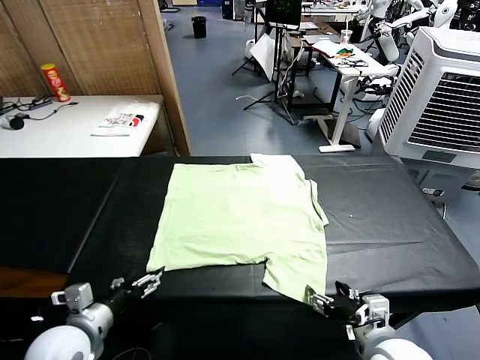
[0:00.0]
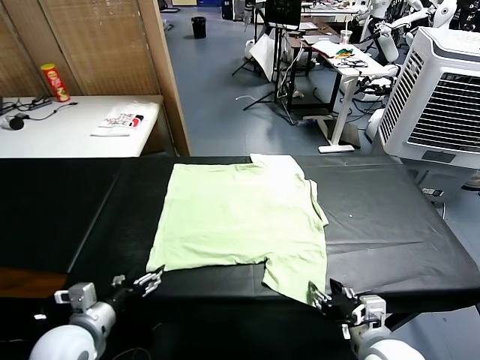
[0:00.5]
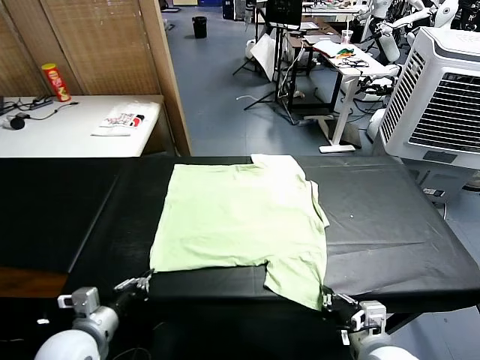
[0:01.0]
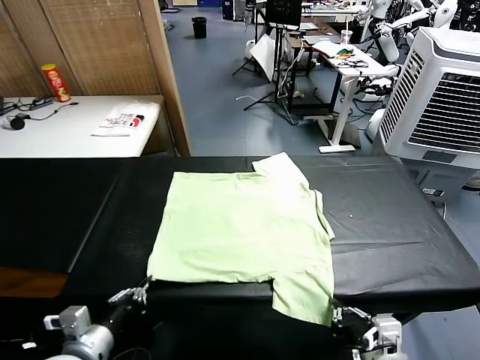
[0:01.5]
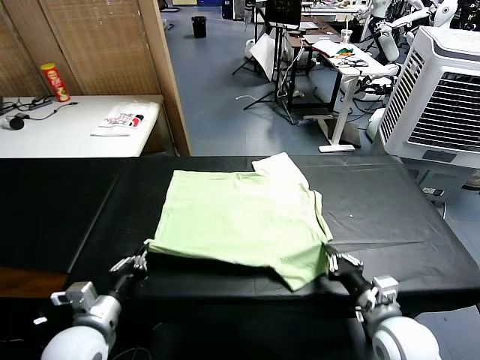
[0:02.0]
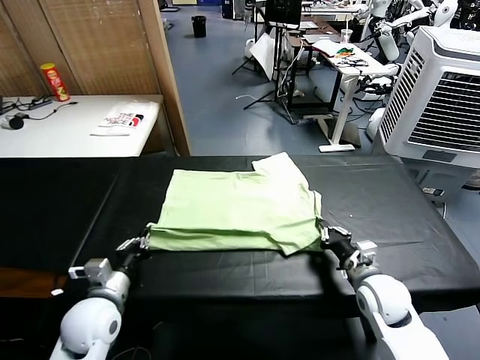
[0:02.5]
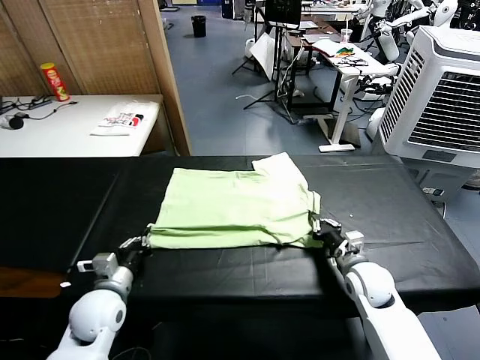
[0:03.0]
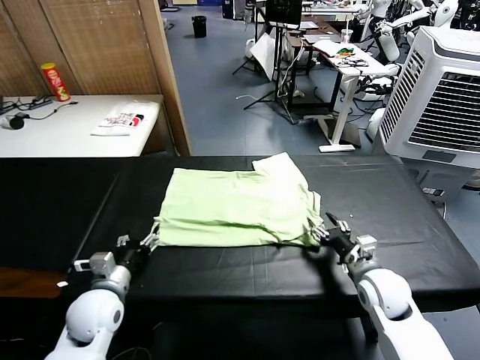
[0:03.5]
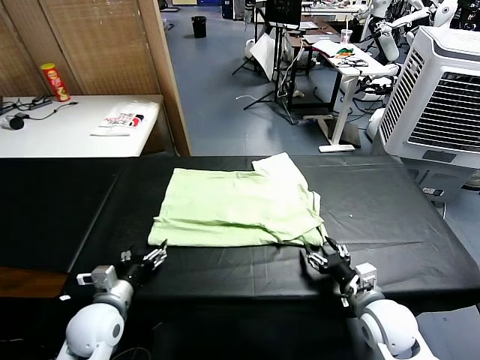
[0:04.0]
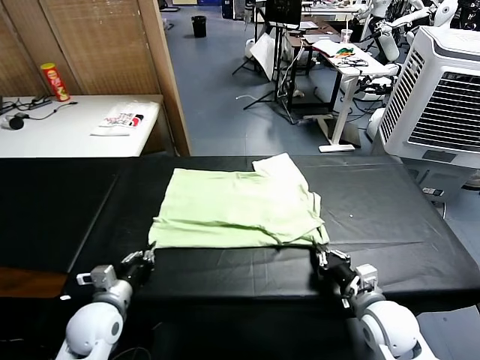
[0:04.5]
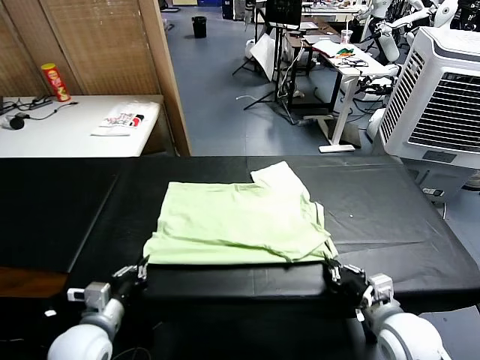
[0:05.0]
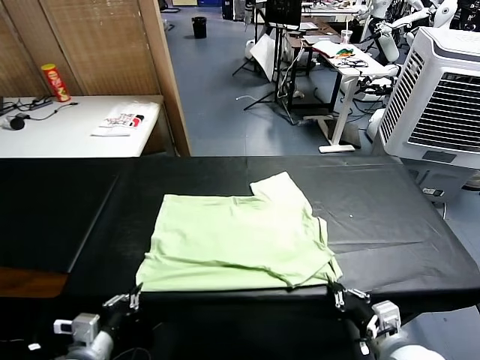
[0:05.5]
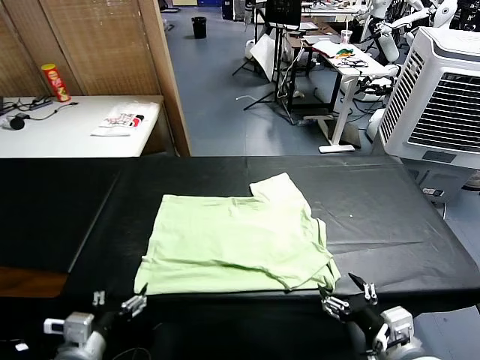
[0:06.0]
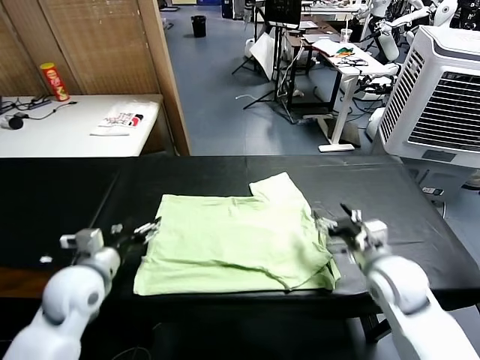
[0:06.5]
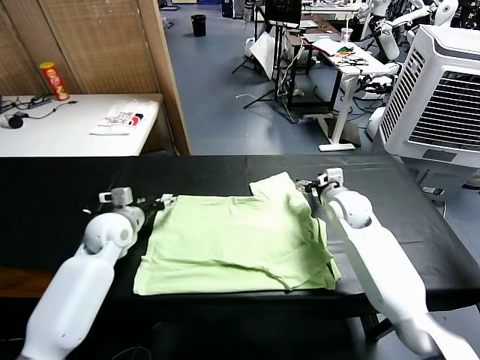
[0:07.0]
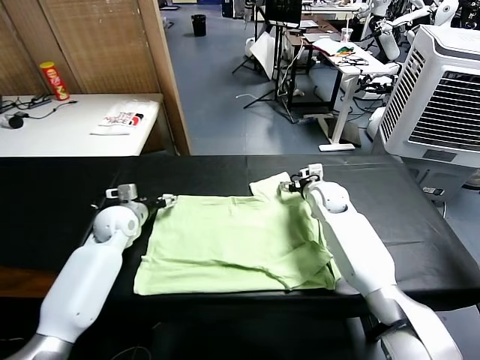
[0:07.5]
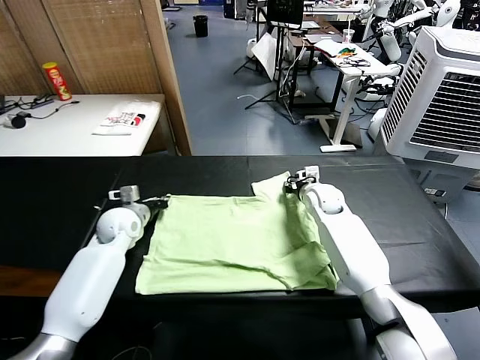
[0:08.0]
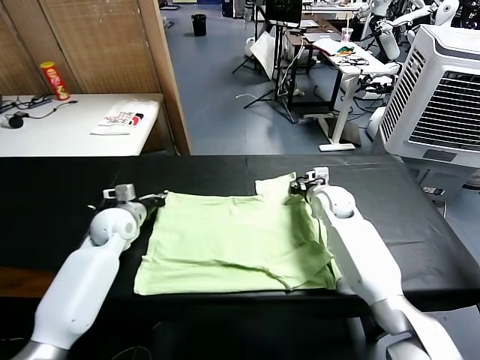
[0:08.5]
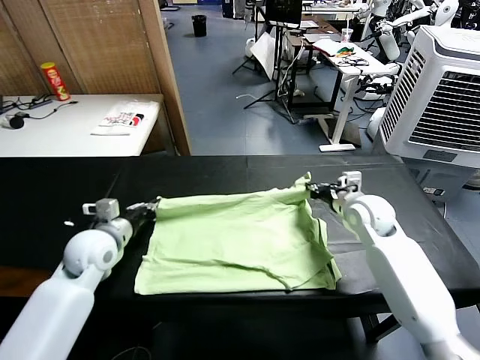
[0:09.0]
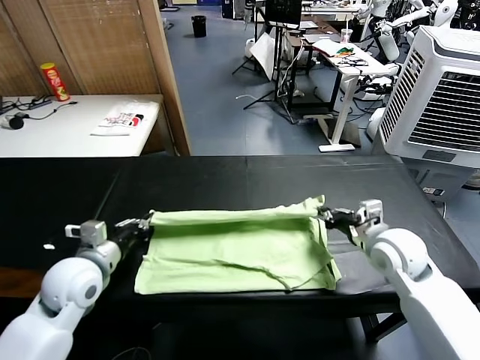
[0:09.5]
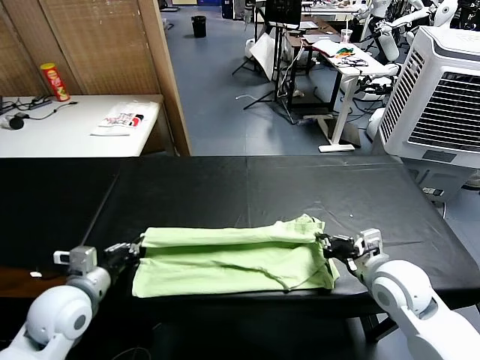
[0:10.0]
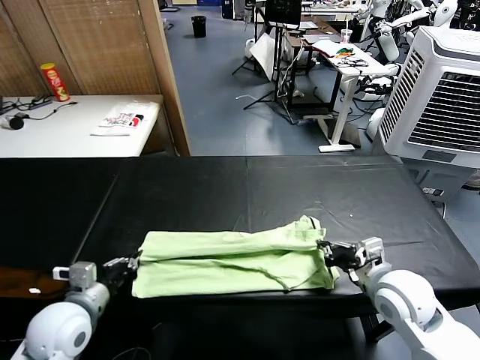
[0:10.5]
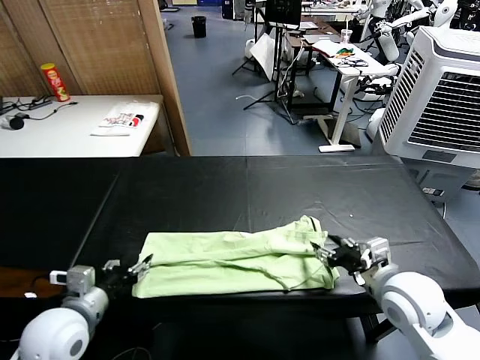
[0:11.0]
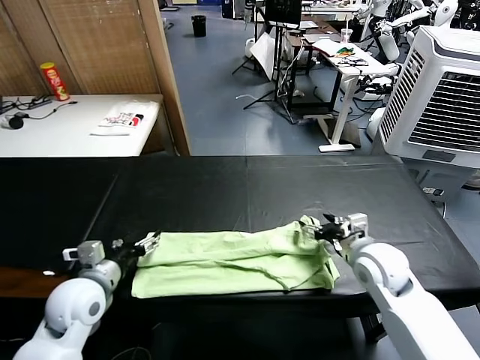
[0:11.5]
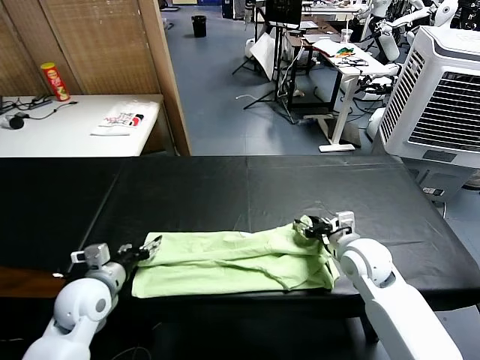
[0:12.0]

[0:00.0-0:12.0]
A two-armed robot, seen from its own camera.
Task of the whole recording: fold and organize the clothes.
Step, 0:00.0 to 0:01.0: use both grippers simultaneously to clamp the lower edge of the clothing fabric.
Step, 0:01.5 to 0:03.5: use both grippers to drag the lower edge of the fabric forward and fold it over the upper edge.
Step, 0:04.0 to 0:06.0: Drag the clothes downward with both gripper.
Step, 0:06.5 to 0:08.0: use both grippers simultaneously to clamp the upper edge of the clothing fabric.
Step, 0:08.5 to 0:11.0: use both grippers to drag the upper edge of the fabric backward and fold it over the lower edge.
0:02.0 to 0:04.0: The right gripper travels forward and back again, roughly 10 cm each way, and opens its fingers. Meanwhile the left gripper heads downward, covering some 5 cm, and opens up.
0:04.0 to 0:06.0: The right gripper is displaced upward and backward by about 10 cm, and opens up; the left gripper goes approximately 10 cm backward and upward, and closes, then opens again.
0:06.0 to 0:08.0: The grippers both shift forward by roughly 35 cm. The right gripper closes up. Meanwhile the left gripper closes up.
0:08.0 to 0:10.0: The grippers both shift backward by roughly 25 cm.
0:10.0 to 0:12.0: The right gripper is displaced forward by roughly 10 cm, and opens; the left gripper shifts by approximately 5 cm, and opens its fingers.

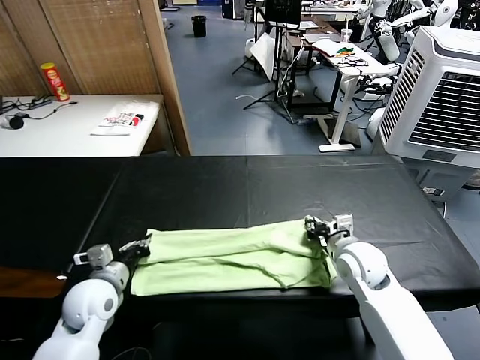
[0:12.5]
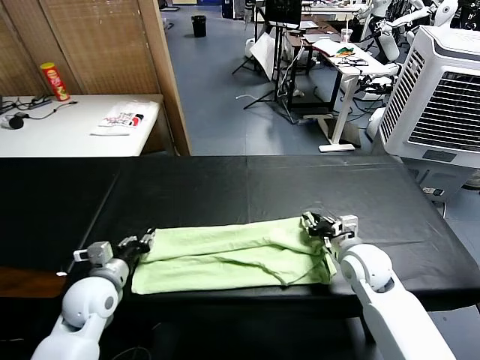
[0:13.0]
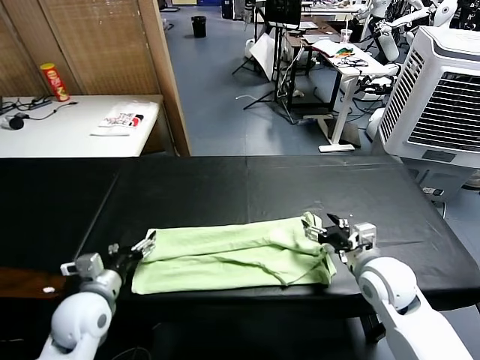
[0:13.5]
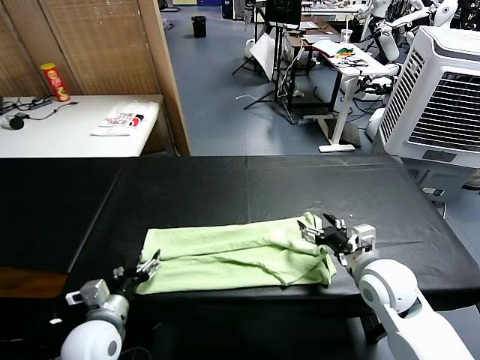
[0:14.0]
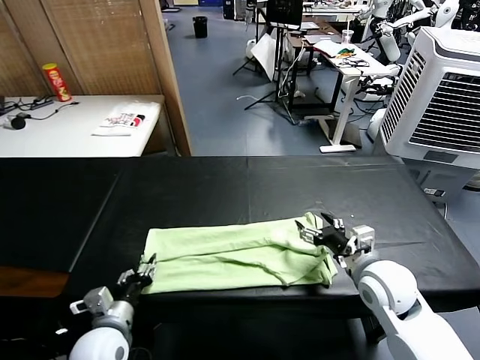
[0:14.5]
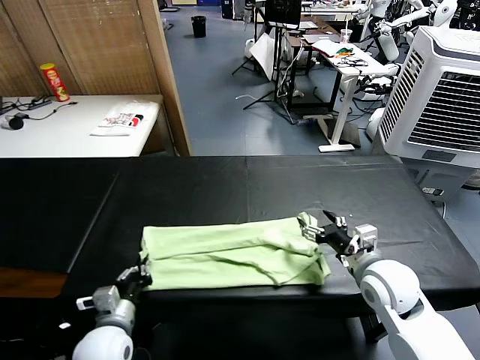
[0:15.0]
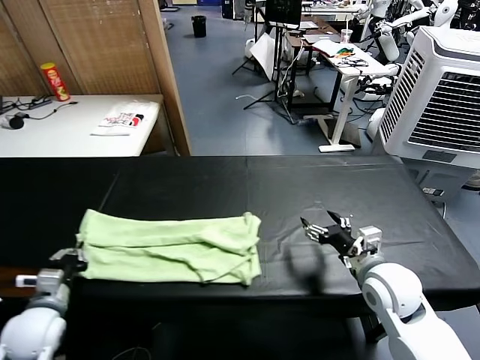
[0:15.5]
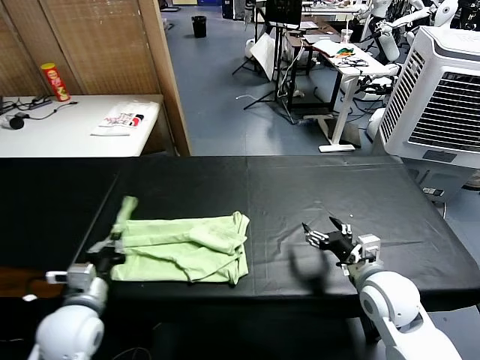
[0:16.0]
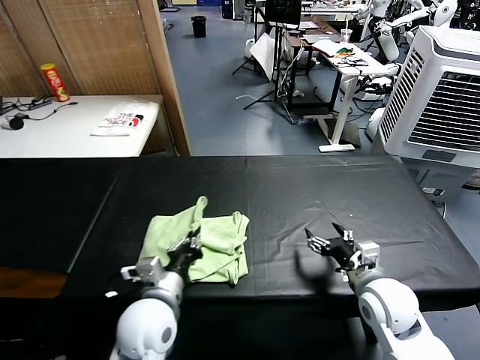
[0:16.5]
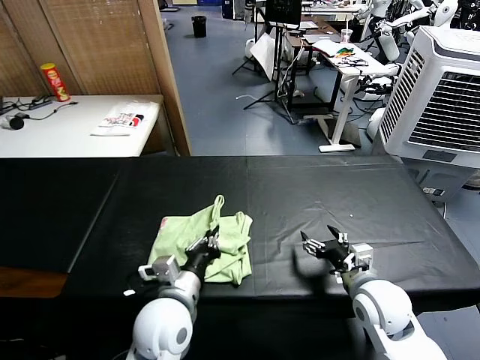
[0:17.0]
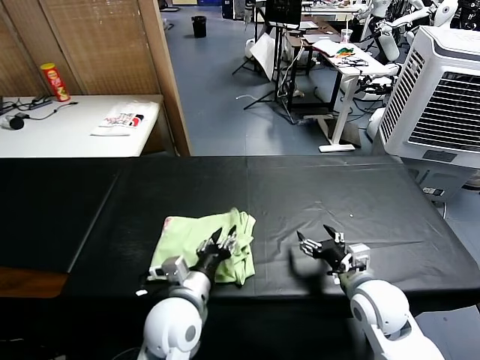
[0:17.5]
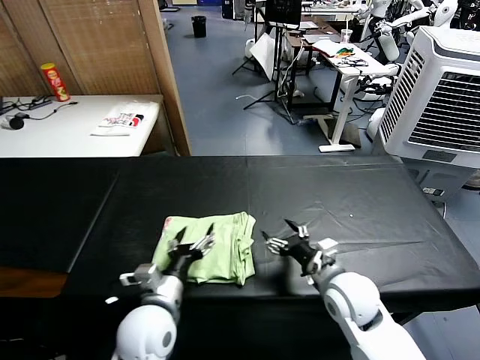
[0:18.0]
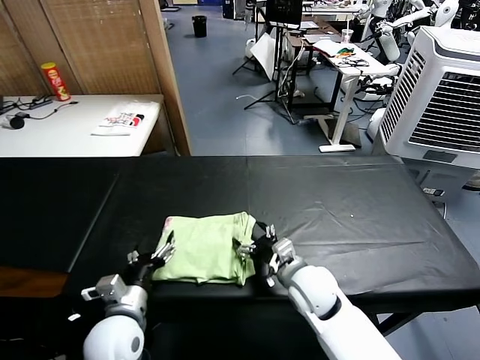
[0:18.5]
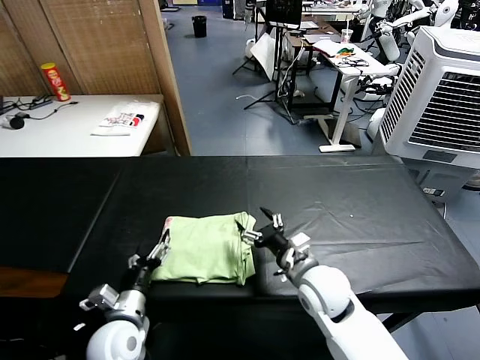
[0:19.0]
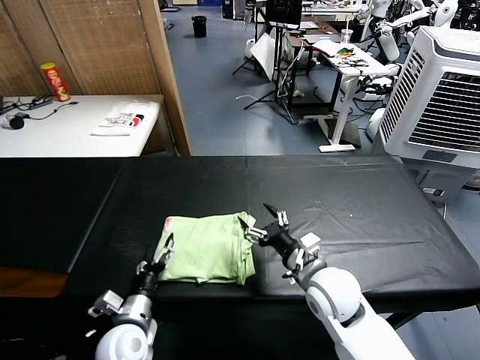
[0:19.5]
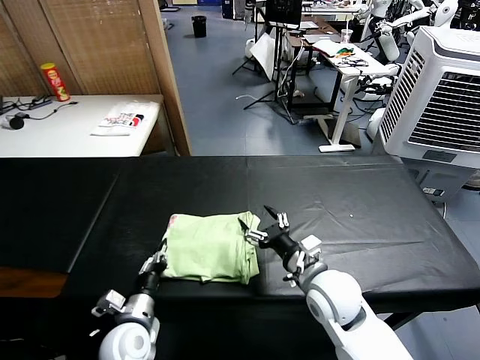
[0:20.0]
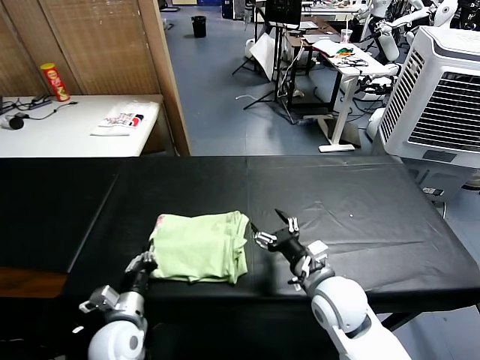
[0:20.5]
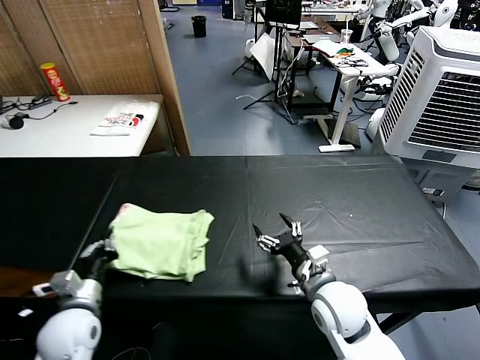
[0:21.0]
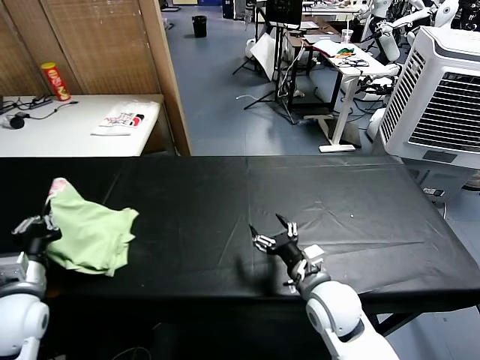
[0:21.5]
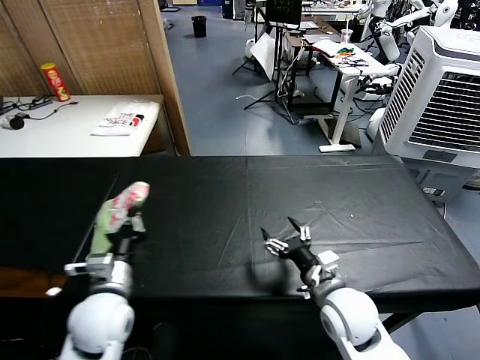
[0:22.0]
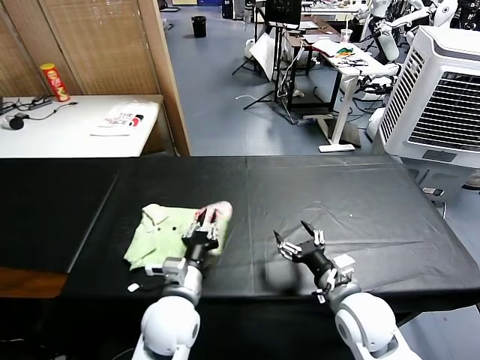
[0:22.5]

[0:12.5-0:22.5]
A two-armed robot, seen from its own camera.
Task of the whole recording: fold and organize the clothes.
Step, 0:12.5 to 0:14.5: use the left gripper to clamp the left edge of the fabric.
Step, 0:15.0 to 0:17.5: use the left gripper to drag the left edge of the fabric to the left and folds it over the right edge.
Step, 0:18.0 to 0:22.5: Flip the folded clothes over with left gripper.
0:12.5 to 0:14.5: Both grippers move backward, some 10 cm. The right gripper opens; the left gripper opens up.
0:14.5 to 0:16.5: The left gripper moves to the right and upward, some 10 cm, and closes.
0:16.5 to 0:18.5: The left gripper goes some 5 cm to the left, and opens its fingers; the right gripper shifts approximately 15 cm to the left.
0:18.5 to 0:20.5: The right gripper moves approximately 5 cm, while the left gripper heads downward, covering roughly 5 cm, and closes.
0:20.5 to 0:22.5: The left gripper heads to the right and upward, covering roughly 15 cm, while the right gripper ends up some 5 cm from where it was.

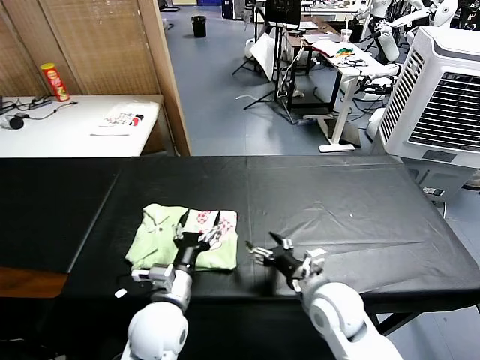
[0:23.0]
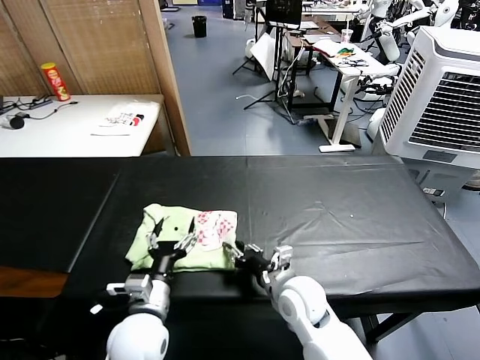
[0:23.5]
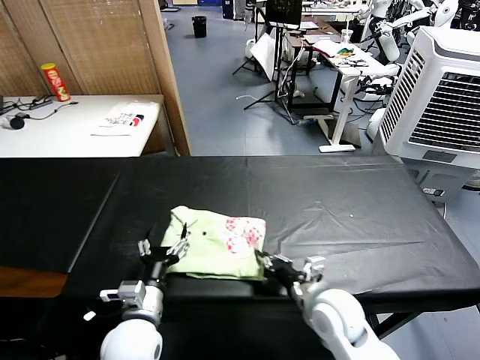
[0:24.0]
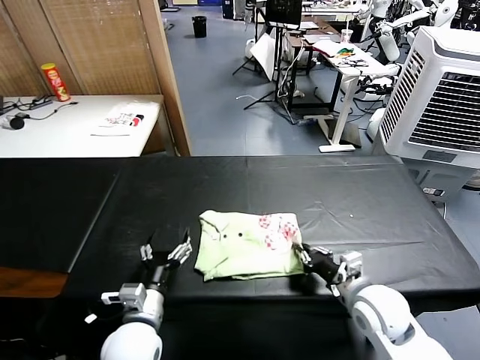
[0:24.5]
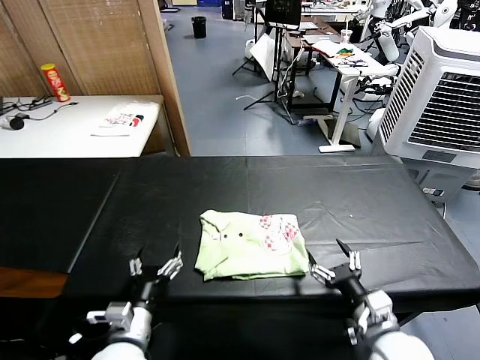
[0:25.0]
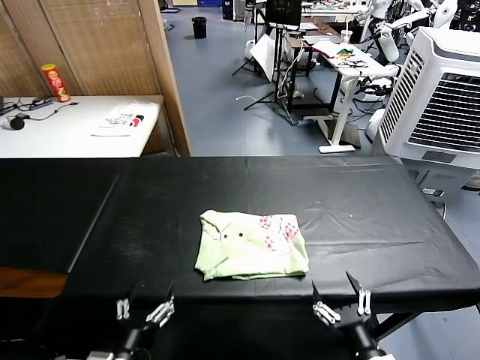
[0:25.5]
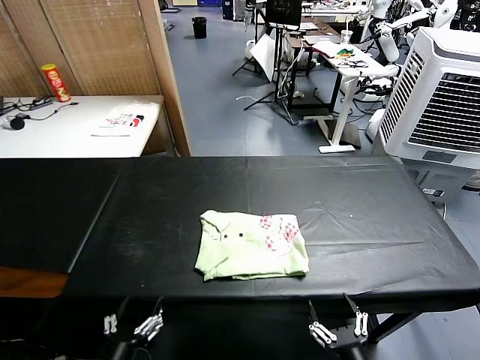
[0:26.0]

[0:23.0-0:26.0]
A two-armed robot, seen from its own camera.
Task of the whole recording: fold and organize the clothes.
Step, 0:23.0 to 0:24.5: Drag the clothes to the center of the table.
0:23.0 to 0:24.5: The right gripper moves to the right, approximately 5 cm, and closes, while the left gripper heads to the left, covering approximately 5 cm.
0:24.5 to 0:26.0: The left gripper is displaced backward by approximately 15 cm, while the right gripper goes some 20 cm backward, and opens up.
